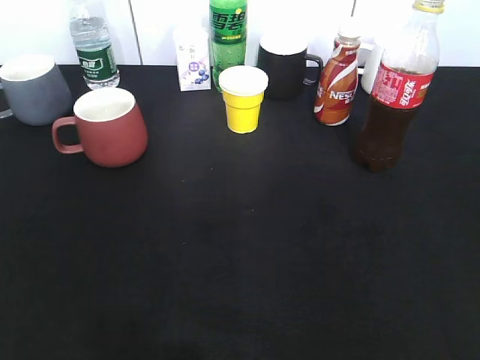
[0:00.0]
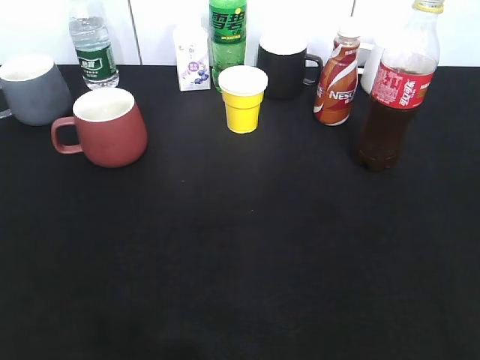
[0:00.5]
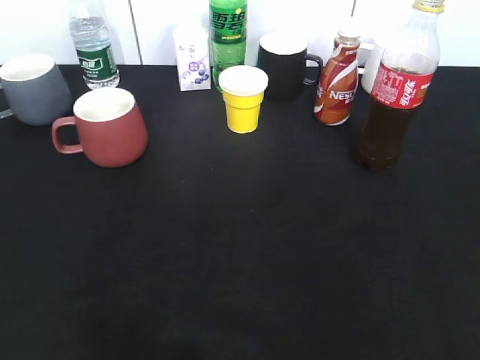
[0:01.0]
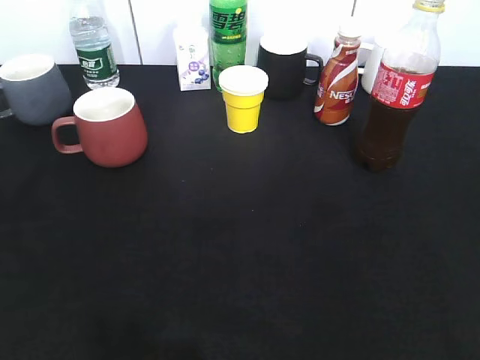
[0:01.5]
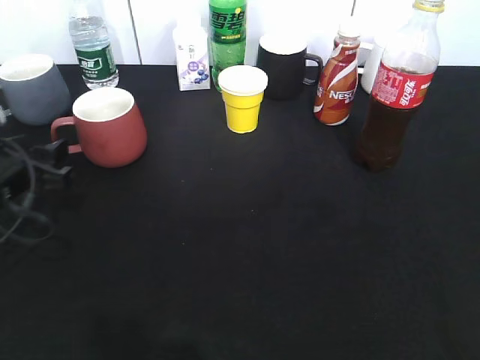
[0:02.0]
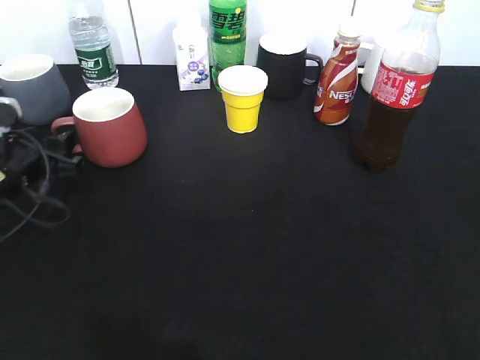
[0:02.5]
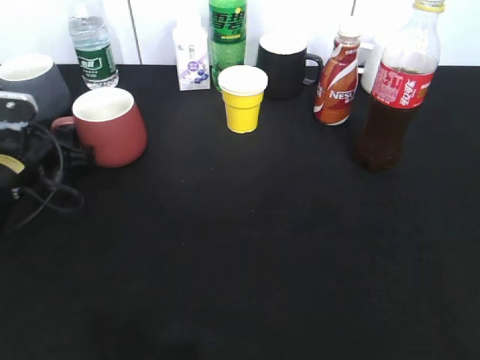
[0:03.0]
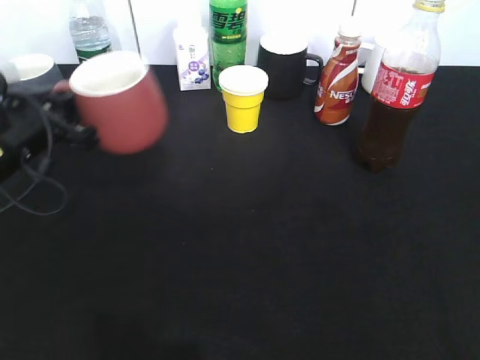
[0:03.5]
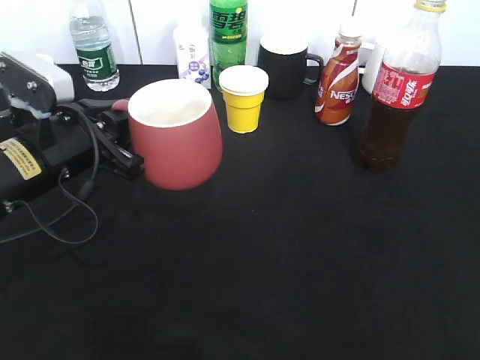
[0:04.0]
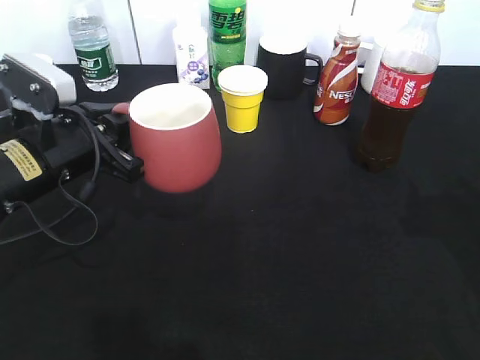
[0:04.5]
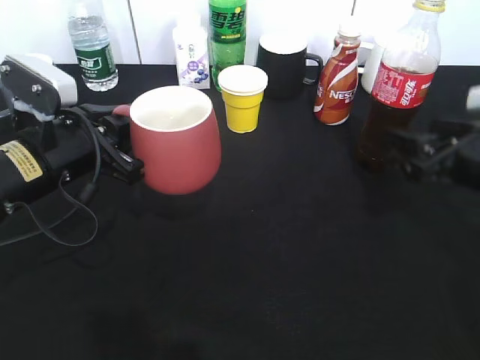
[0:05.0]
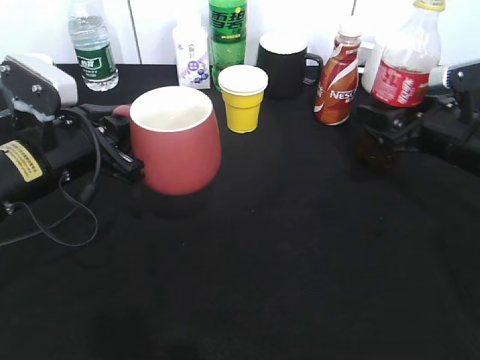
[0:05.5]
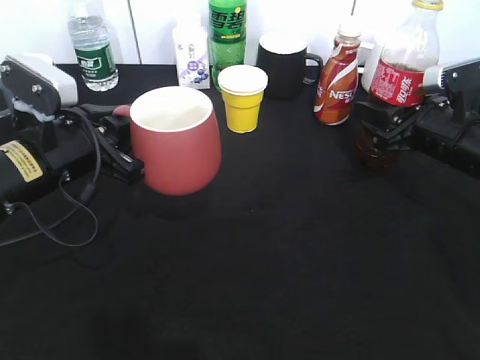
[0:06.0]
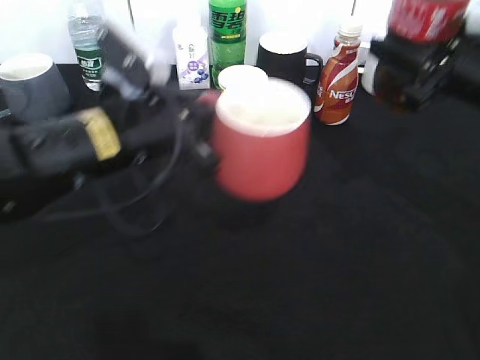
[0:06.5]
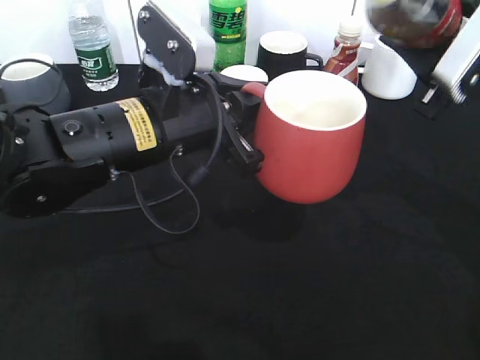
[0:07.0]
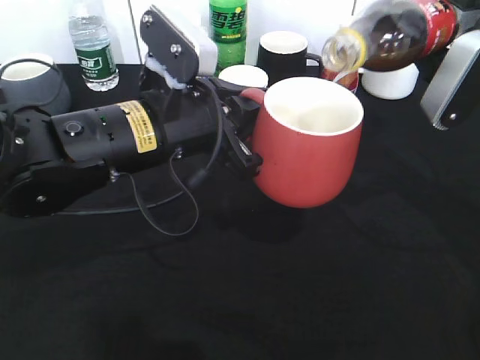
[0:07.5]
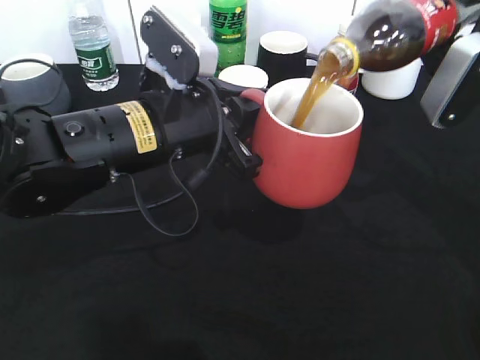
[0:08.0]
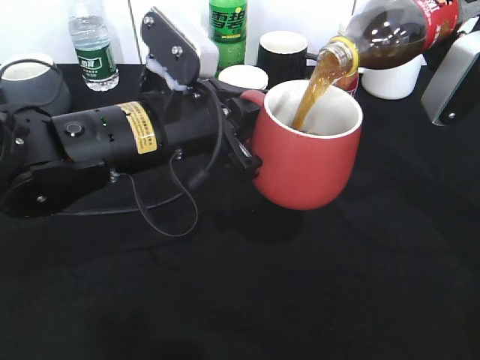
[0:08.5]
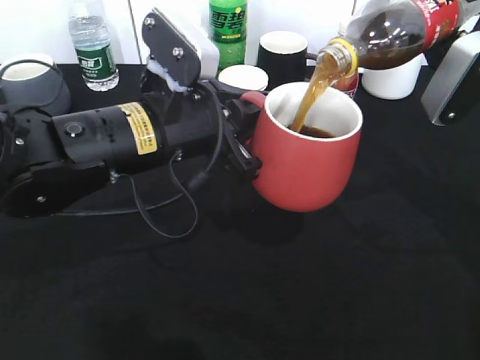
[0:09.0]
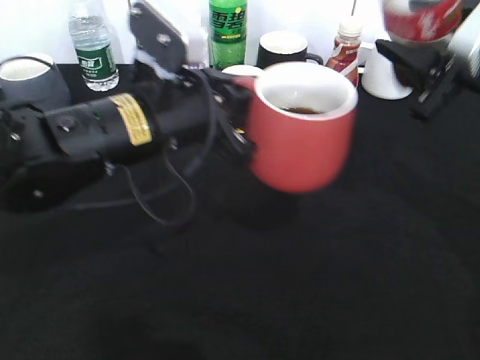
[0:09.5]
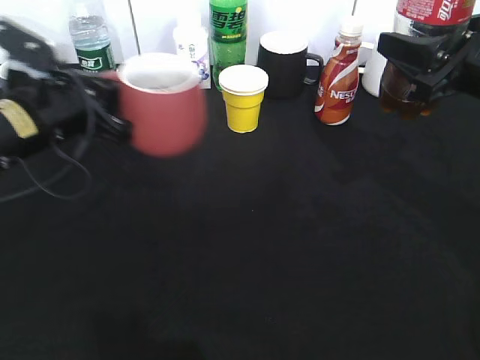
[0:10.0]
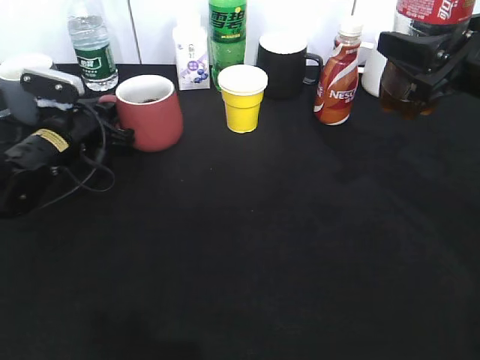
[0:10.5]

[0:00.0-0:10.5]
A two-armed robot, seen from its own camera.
Step, 0:00.0 to 0:03.0: Grasp the red cup with left gripper.
Step, 0:03.5 to 0:04.0: Lift the red cup with left gripper.
Step, 0:04.5 to 0:05.5: Grasp the bottle with cola with right gripper.
Step, 0:06.0 to 0:09.0: Pour the cola from bottle to cup with right gripper.
0:00.0 to 0:02.0: The left gripper travels forward and downward by roughly 30 cm, and opens up.
0:02.0 to 0:04.0: The left gripper moves to the right, about 10 cm, and closes up.
0:04.0 to 0:06.5: The right gripper goes approximately 30 cm forward, and closes. Meanwhile the left gripper heads to the right, covering about 10 cm.
0:08.5 to 0:10.5: The left gripper goes about 25 cm to the left, forward and downward.

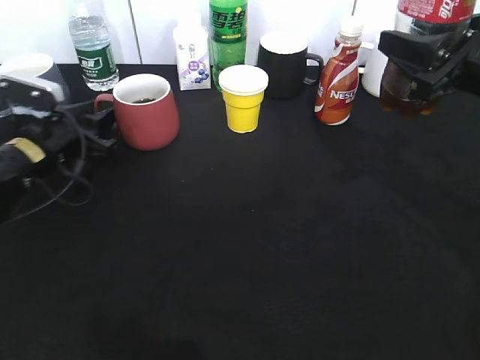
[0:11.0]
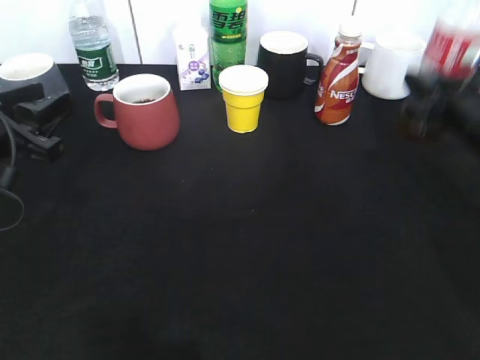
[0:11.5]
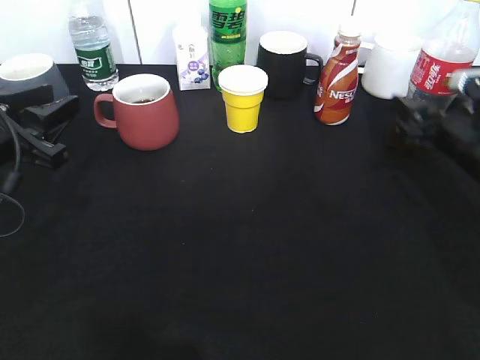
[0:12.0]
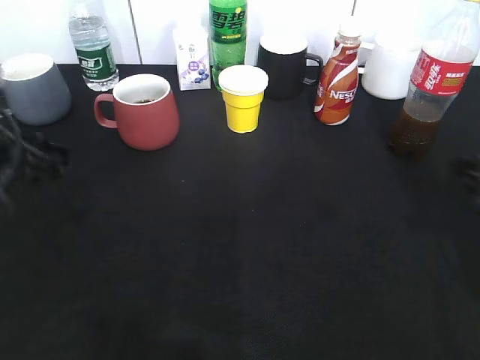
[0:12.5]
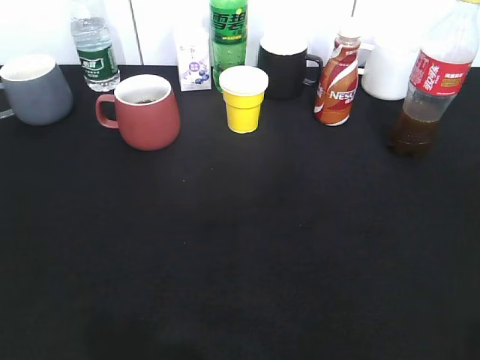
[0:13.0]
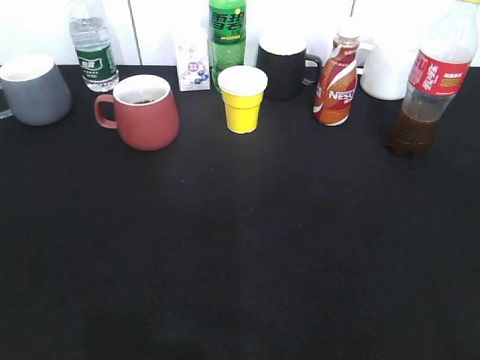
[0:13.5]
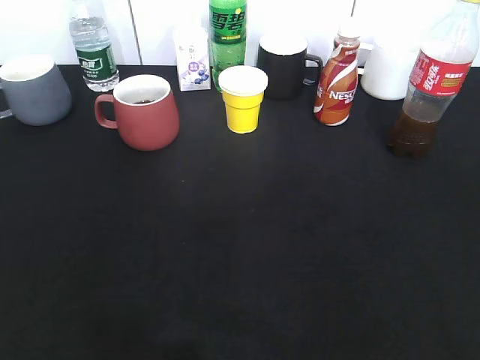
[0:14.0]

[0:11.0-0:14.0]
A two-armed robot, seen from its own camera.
Step, 0:11.5 to 0:12.5: Place the cola bottle on the table with right gripper.
0:11.0 to 0:12.5: The left gripper moves backward and upward, some 15 cm. The right gripper shifts approximately 10 cm backward, downward and to the right, and opens up.
0:12.5 to 0:14.0: Both grippers move backward, some 25 cm.
